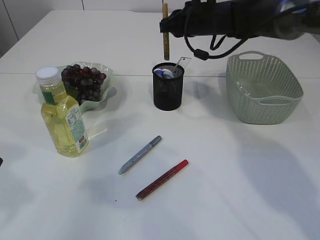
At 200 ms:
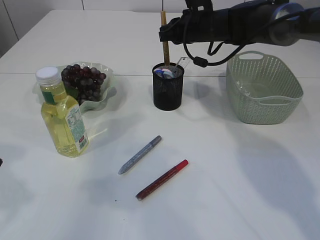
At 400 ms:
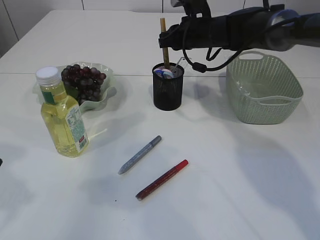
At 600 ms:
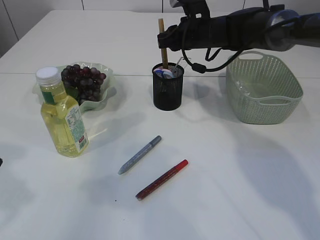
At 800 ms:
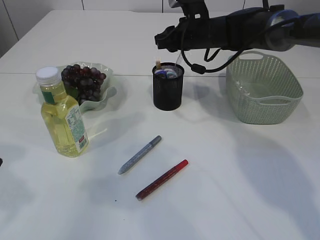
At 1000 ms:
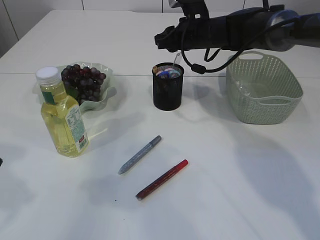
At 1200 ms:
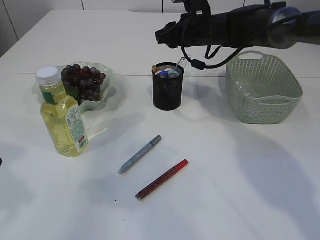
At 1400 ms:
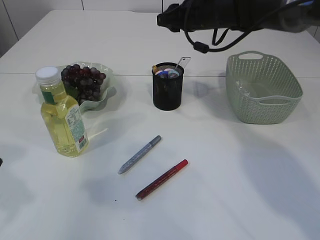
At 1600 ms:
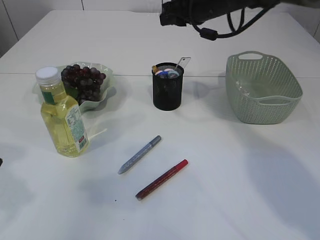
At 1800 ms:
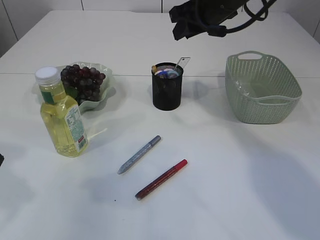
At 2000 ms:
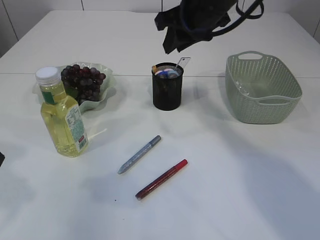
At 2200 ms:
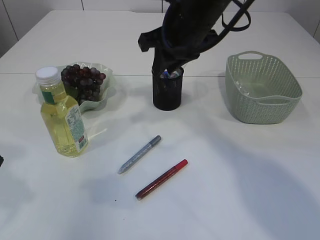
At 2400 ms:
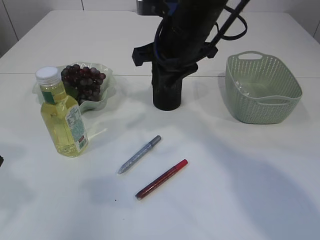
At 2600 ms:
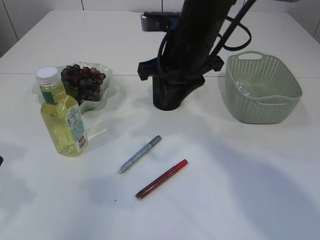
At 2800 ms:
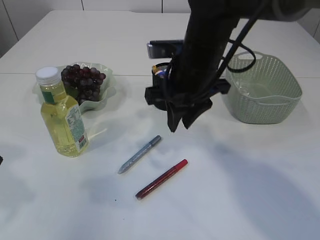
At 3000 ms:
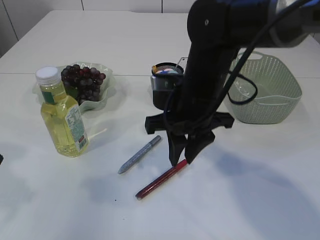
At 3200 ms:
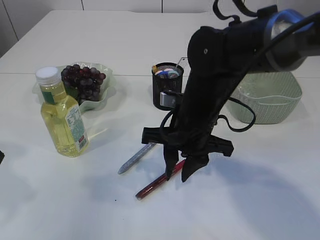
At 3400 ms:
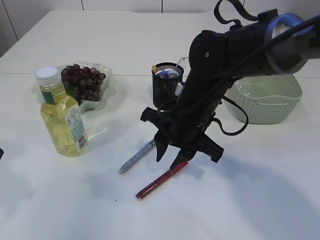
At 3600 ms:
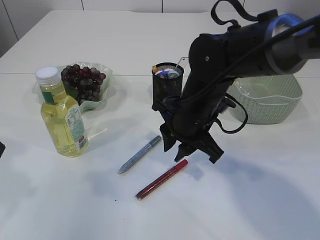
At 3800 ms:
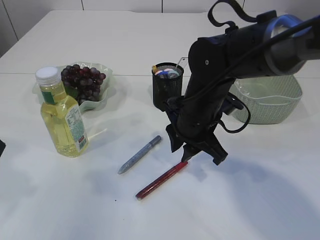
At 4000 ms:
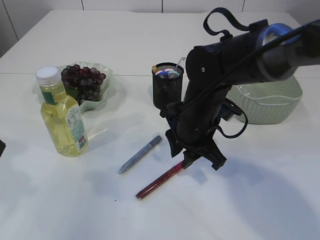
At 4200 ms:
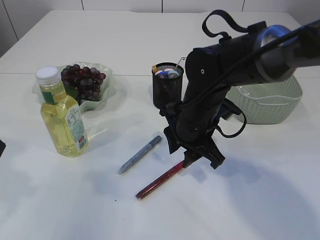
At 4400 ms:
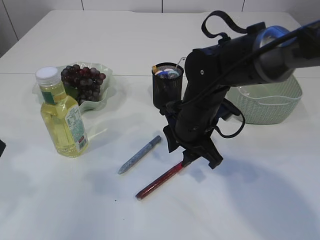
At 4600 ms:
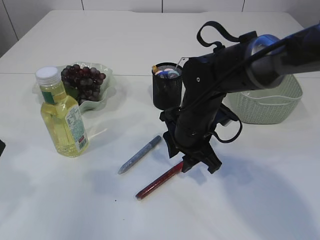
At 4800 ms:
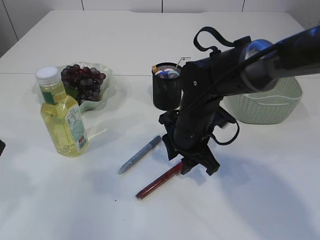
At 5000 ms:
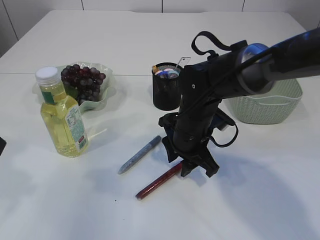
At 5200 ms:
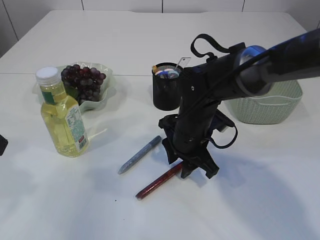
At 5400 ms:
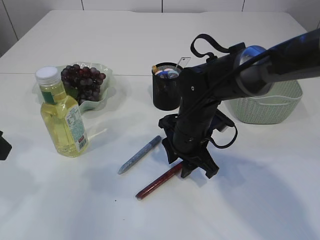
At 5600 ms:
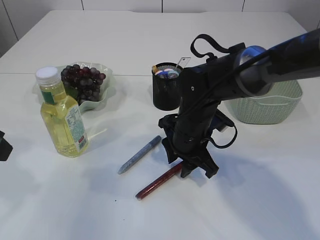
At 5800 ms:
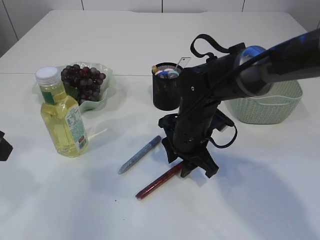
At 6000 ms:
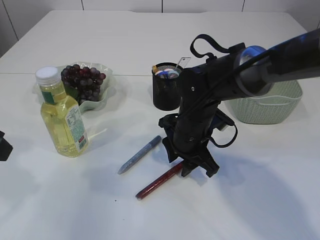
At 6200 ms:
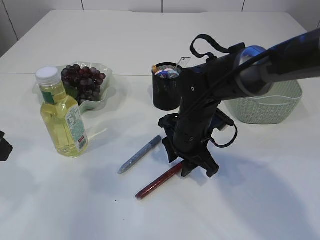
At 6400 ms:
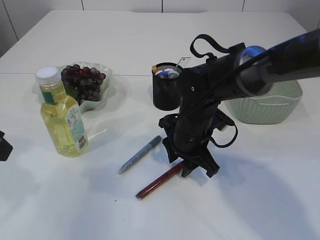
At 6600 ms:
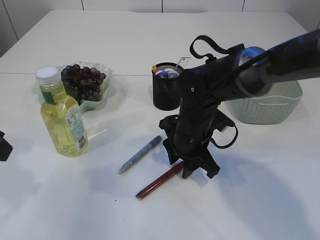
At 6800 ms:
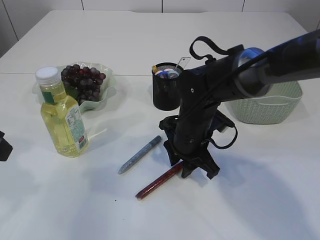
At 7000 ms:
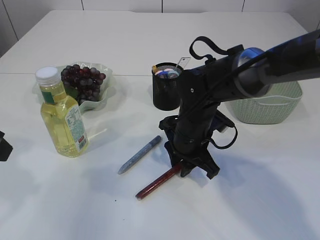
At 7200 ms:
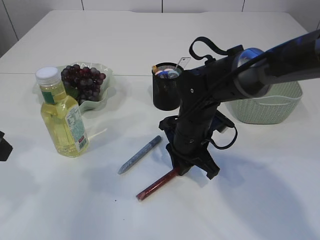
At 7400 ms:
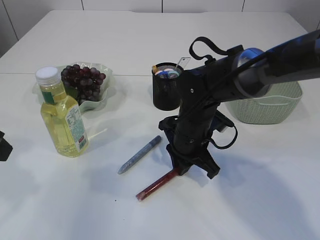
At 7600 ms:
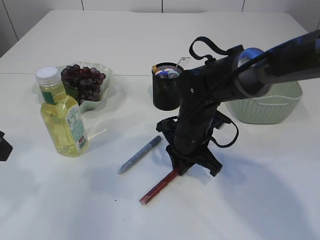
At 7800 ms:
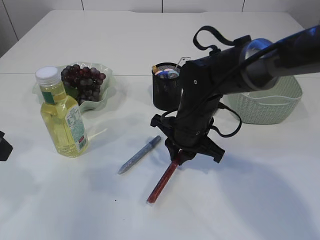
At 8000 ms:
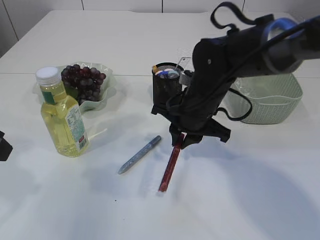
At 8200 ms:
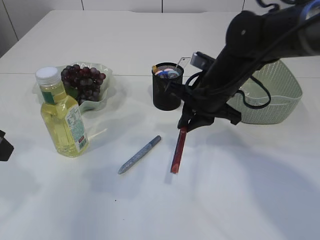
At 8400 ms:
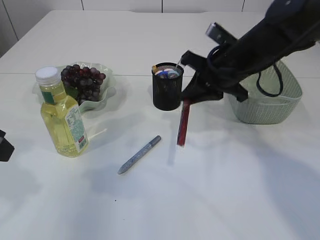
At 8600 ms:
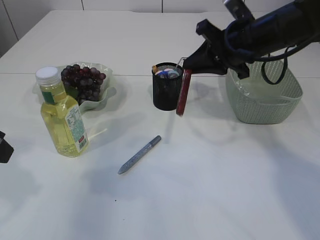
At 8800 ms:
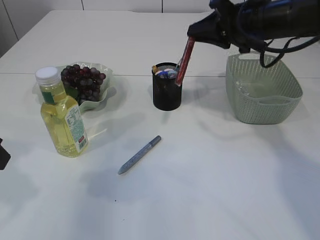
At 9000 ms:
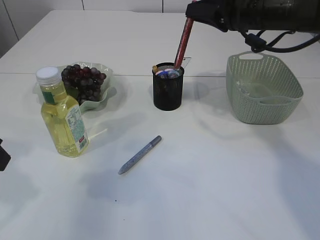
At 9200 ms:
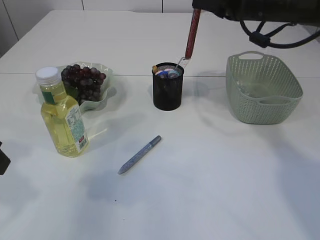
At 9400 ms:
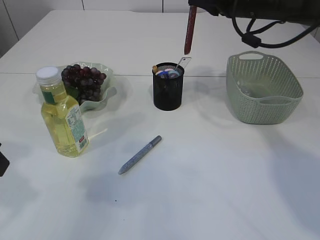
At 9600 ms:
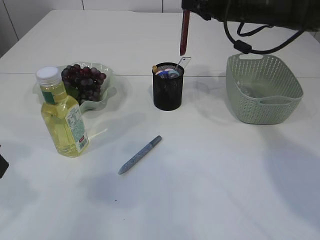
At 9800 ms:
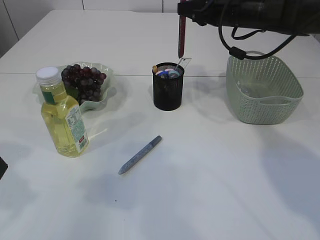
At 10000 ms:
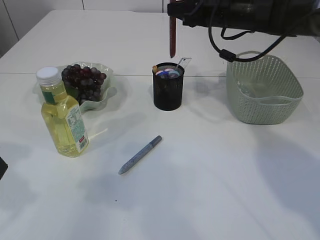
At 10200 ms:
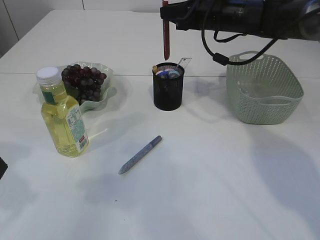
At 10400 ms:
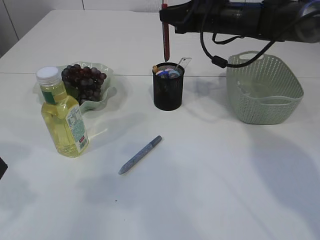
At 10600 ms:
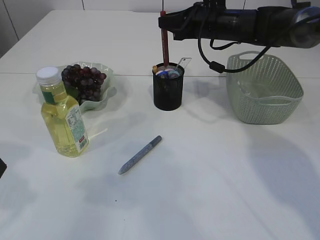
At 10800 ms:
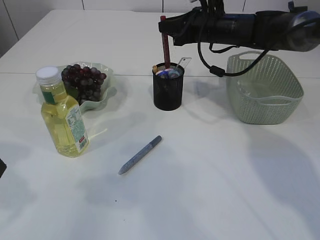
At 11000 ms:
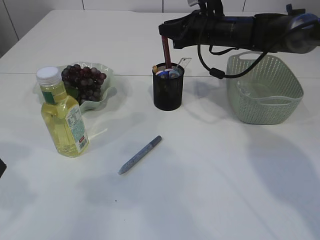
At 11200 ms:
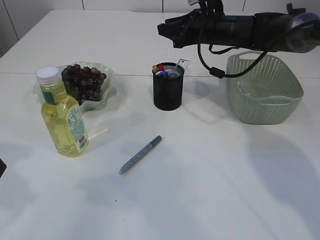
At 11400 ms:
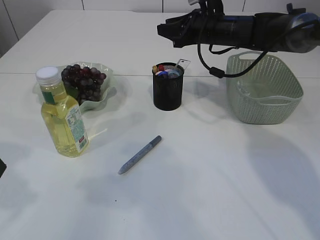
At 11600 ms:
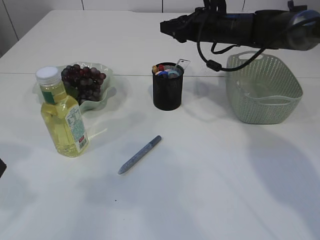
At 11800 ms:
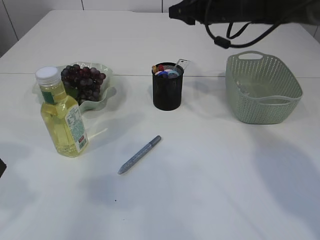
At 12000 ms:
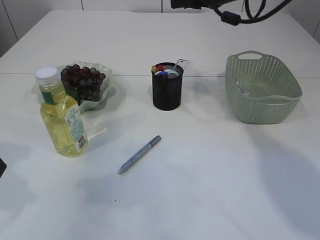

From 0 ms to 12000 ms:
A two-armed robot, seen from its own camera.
Step, from 1400 ms to 8000 ms: pick up the red glue.
Step, from 8200 ms to 11600 ms: place the red glue into the pen holder.
From 0 ms to 1600 ms: The right gripper heads upward, covering about 5 cm.
From 1600 ms to 3000 ms: The right gripper is displaced backward and downward by some 20 cm.
From 3000 ms to 4400 ms: The right gripper moves roughly 5 cm.
From 4400 ms to 6000 ms: The grippers make only small movements.
From 6000 ms to 7600 ms: The right gripper closes up.
From 7600 ms to 9000 ms: The right gripper goes approximately 20 cm upward, to the right and forward.
From 9000 ms to 10400 ms: The right gripper heads forward, covering approximately 10 cm.
From 10400 ms to 12000 ms: The right gripper travels upward and backward by roughly 10 cm.

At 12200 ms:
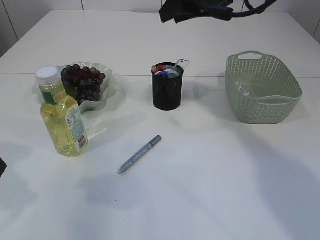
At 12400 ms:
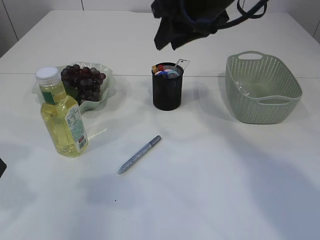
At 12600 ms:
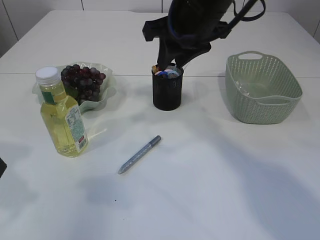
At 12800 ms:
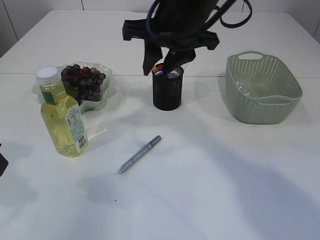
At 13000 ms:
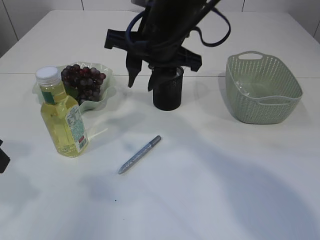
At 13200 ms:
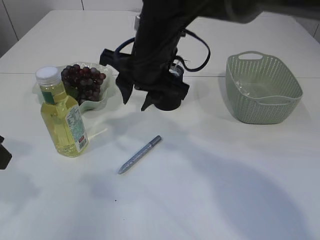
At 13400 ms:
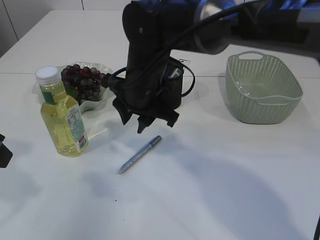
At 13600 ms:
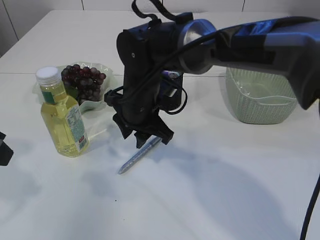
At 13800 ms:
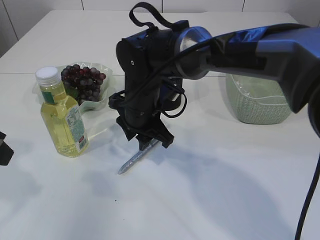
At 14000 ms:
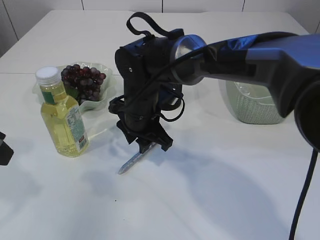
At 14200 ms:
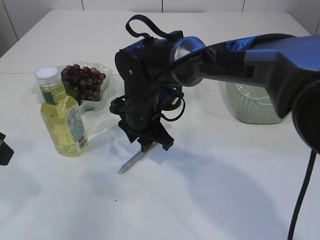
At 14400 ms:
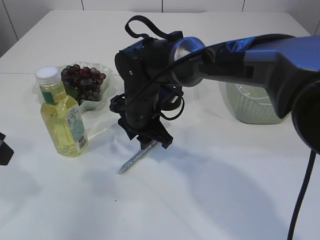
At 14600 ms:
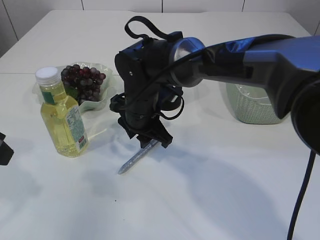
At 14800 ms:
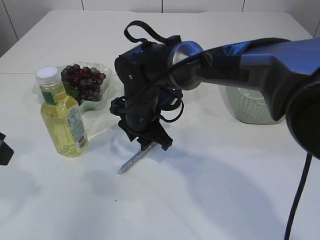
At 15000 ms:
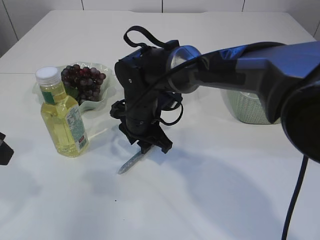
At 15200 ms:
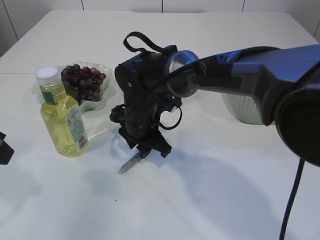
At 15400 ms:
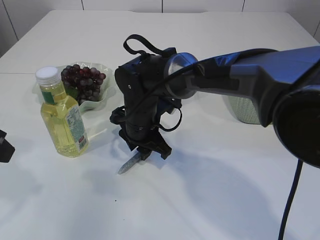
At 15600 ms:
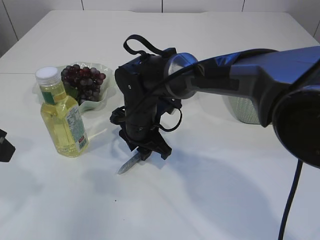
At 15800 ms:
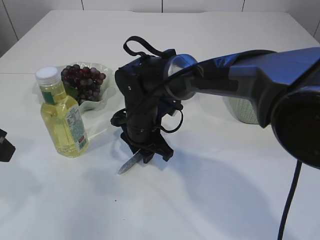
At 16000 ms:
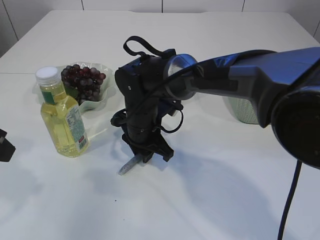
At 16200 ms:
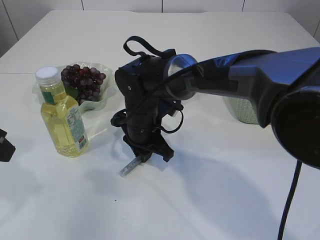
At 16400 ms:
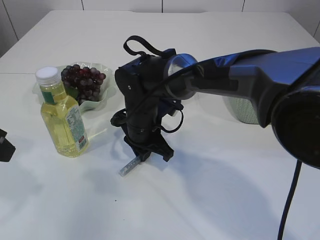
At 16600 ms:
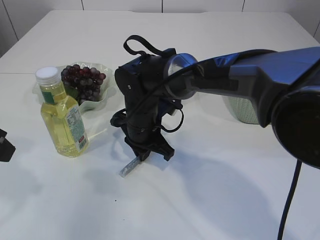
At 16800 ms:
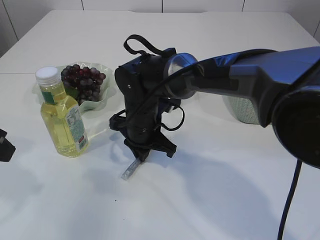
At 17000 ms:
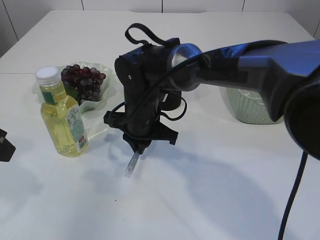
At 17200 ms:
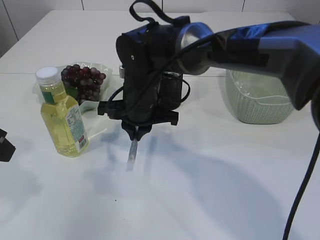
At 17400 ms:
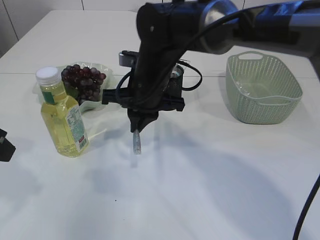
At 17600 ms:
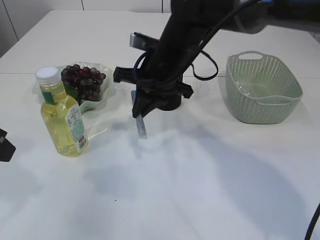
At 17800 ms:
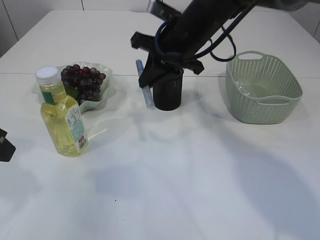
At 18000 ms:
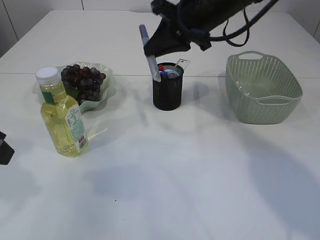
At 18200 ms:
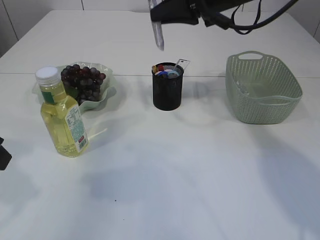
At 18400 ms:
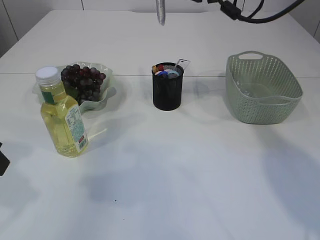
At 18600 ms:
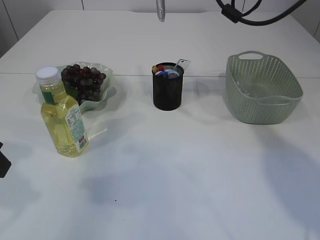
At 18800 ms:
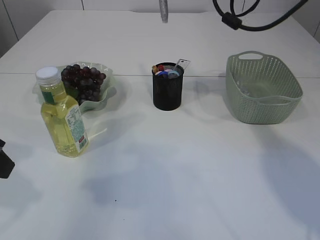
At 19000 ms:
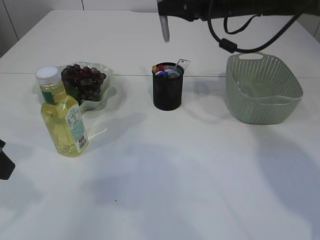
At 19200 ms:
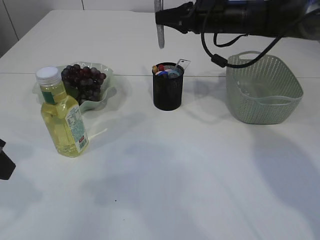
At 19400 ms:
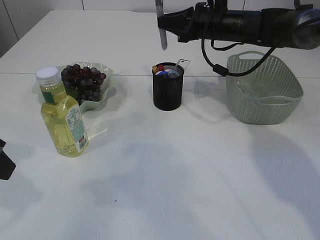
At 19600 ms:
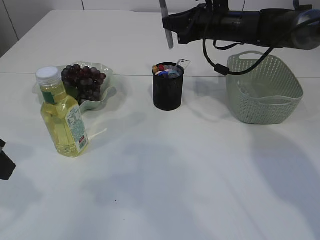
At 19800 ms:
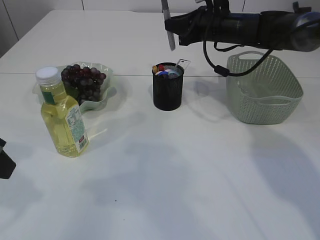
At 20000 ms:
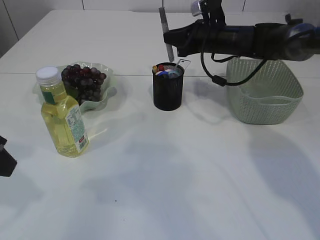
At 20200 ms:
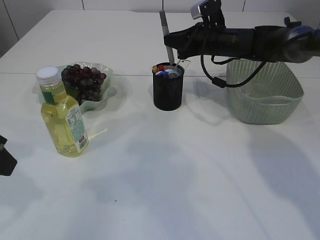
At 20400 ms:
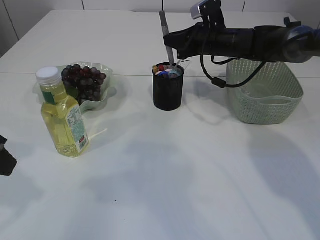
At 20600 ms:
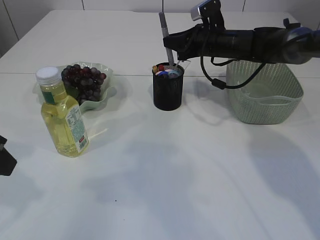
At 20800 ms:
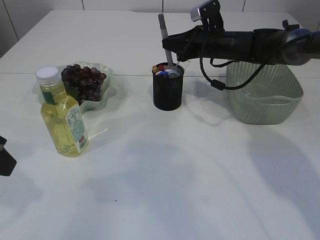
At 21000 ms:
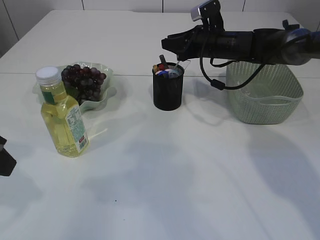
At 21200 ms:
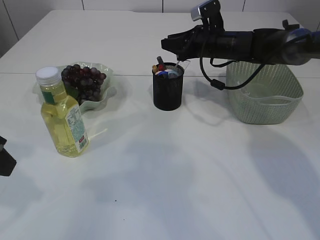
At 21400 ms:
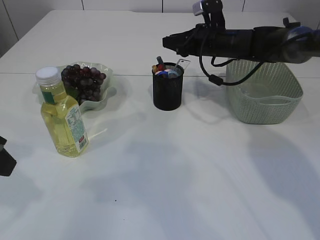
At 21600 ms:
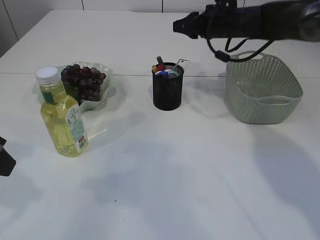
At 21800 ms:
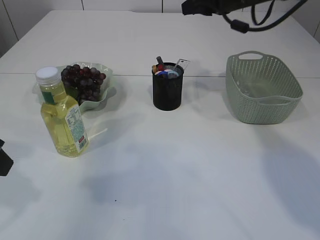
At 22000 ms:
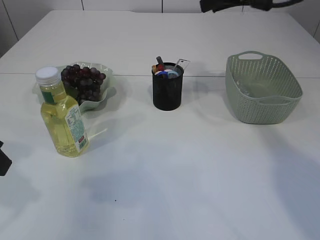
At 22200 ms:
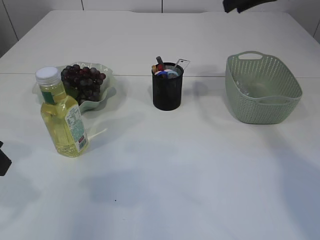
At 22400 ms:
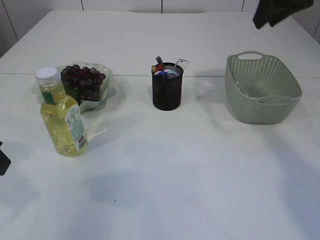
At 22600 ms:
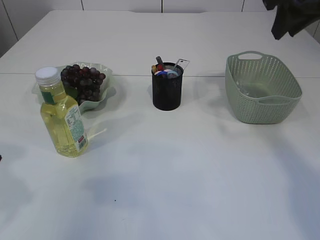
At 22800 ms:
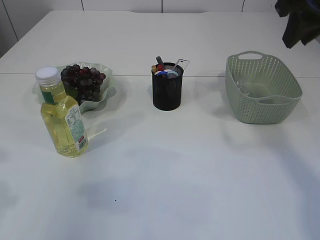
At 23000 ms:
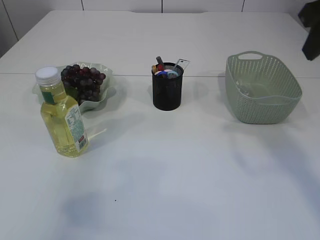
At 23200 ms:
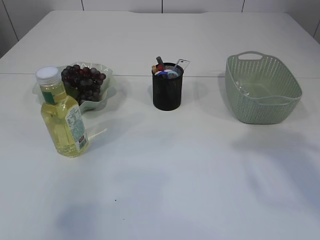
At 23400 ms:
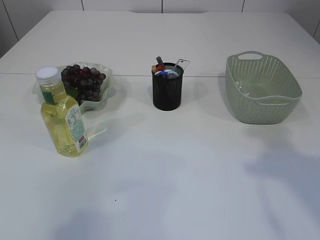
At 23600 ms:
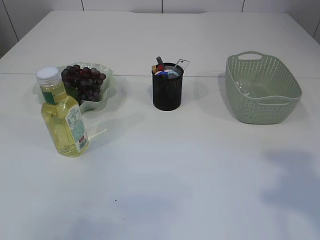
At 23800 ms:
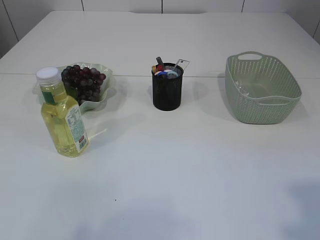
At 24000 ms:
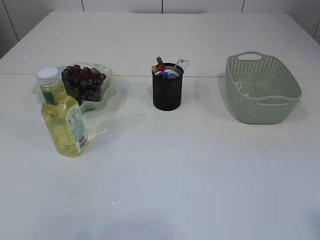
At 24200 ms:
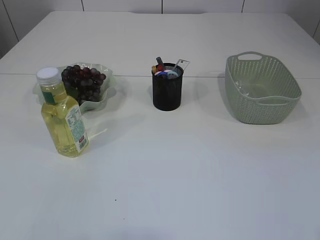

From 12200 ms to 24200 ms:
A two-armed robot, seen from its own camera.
Step, from 12200 ms to 17400 ms: pick up the silver glue.
Step, from 17600 ms to 21400 ms: place the silver glue into the pen holder.
From 12200 ms to 13800 ms: The right gripper moves downward and to the left, approximately 20 cm.
From 15200 ms to 16600 ms: The right gripper closes its fingers.
From 16600 ms to 18200 ms: The right gripper heads upward and to the right, covering some 25 cm.
From 18200 ms to 19800 ms: The right gripper is displaced downward and forward by roughly 15 cm.
From 19800 ms to 21200 ms: The right gripper opens up.
From 21200 ms to 22600 ms: The right gripper shifts approximately 25 cm upward, backward and to the right.
From 22600 ms to 24200 ms: The left gripper is displaced backward and to the left by about 20 cm; the right gripper is displaced backward by roughly 40 cm.
